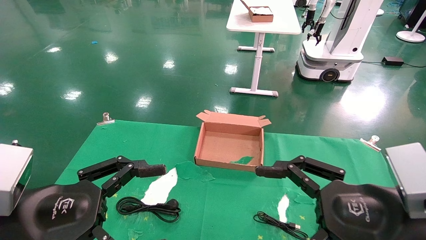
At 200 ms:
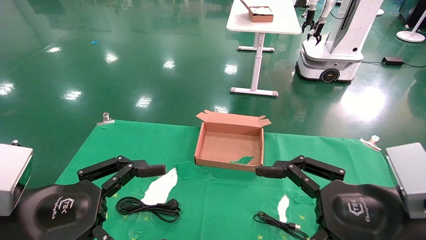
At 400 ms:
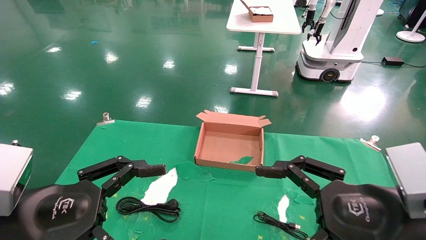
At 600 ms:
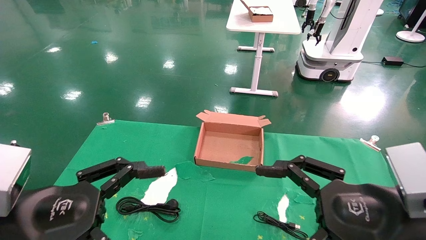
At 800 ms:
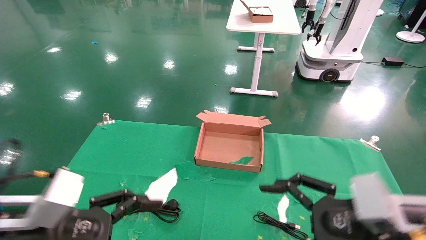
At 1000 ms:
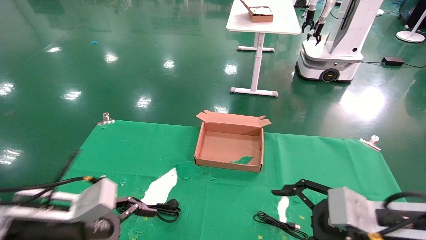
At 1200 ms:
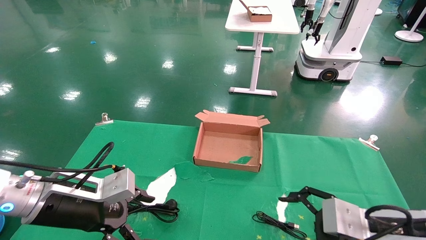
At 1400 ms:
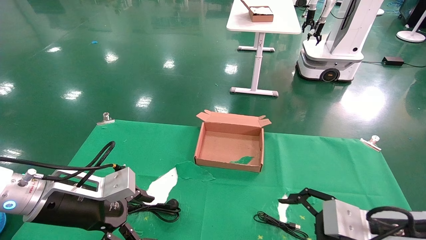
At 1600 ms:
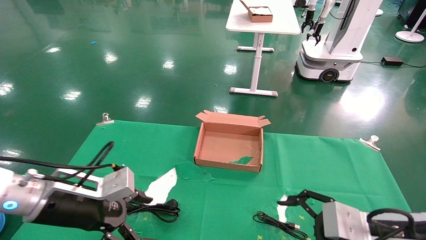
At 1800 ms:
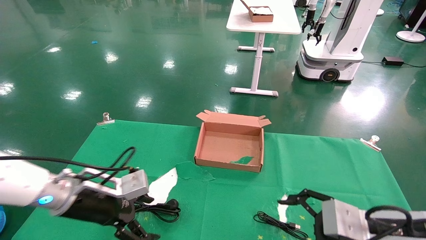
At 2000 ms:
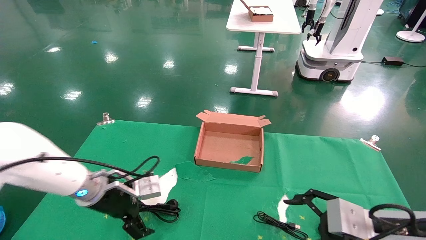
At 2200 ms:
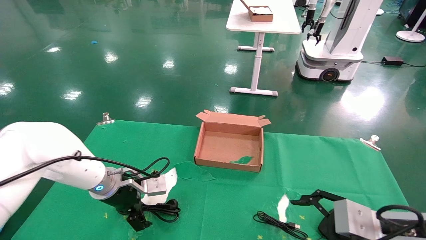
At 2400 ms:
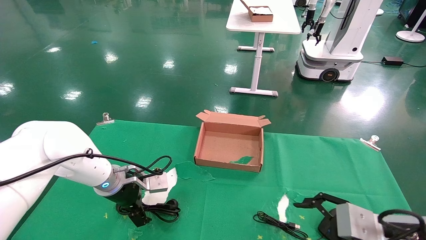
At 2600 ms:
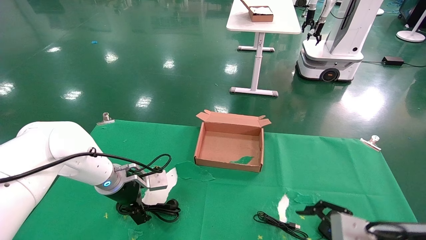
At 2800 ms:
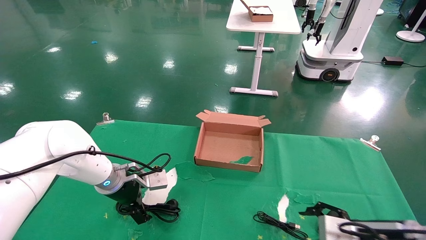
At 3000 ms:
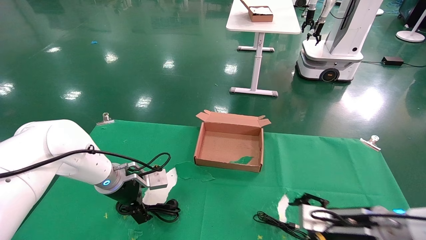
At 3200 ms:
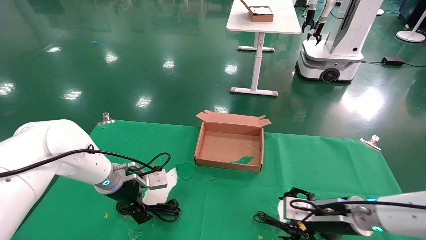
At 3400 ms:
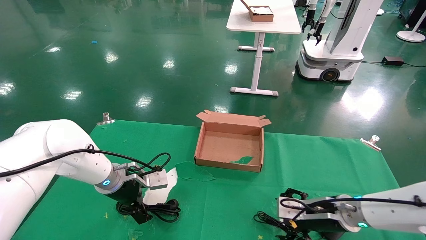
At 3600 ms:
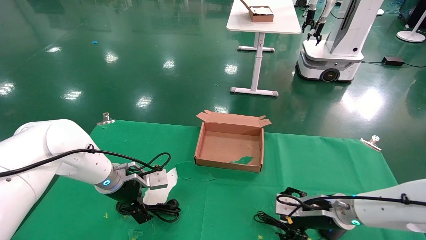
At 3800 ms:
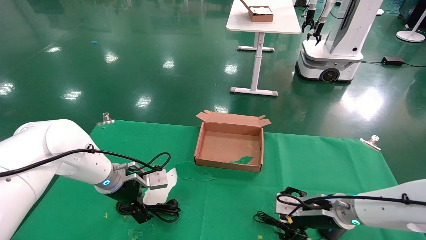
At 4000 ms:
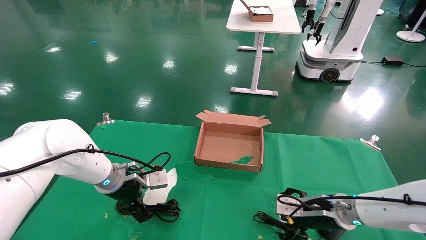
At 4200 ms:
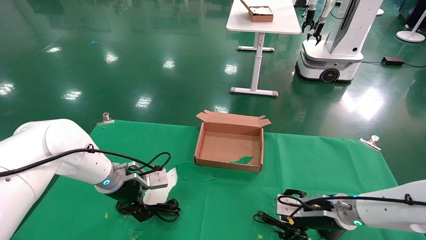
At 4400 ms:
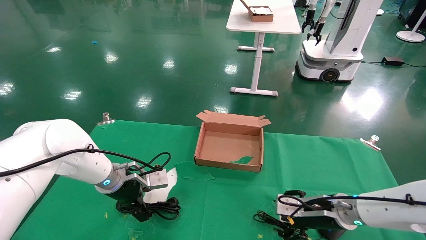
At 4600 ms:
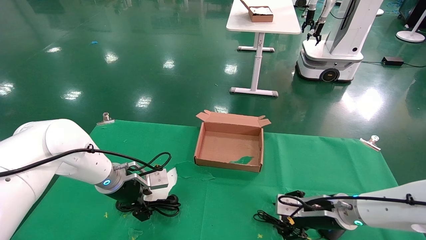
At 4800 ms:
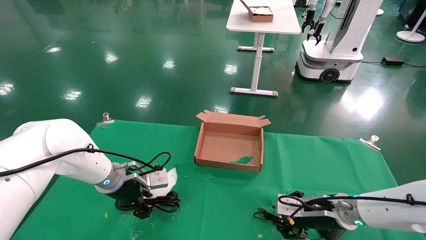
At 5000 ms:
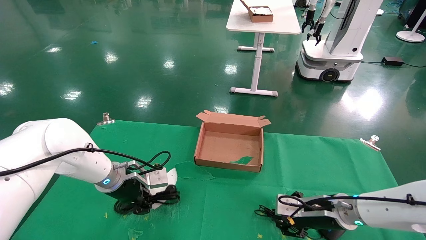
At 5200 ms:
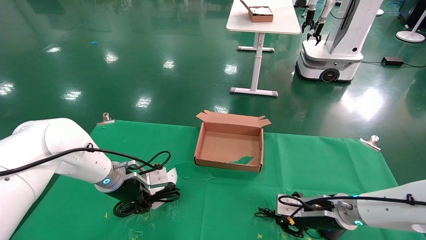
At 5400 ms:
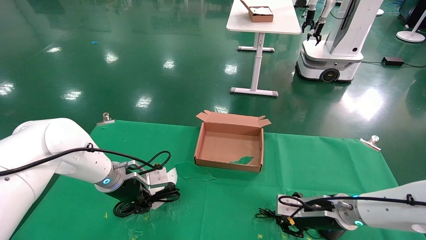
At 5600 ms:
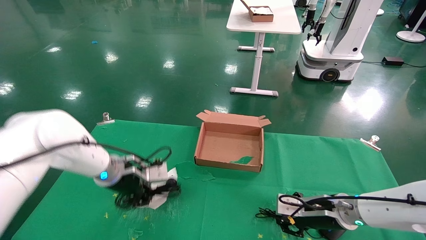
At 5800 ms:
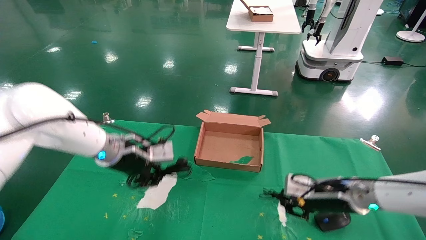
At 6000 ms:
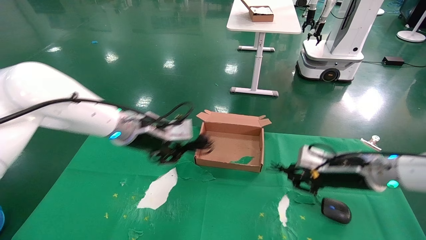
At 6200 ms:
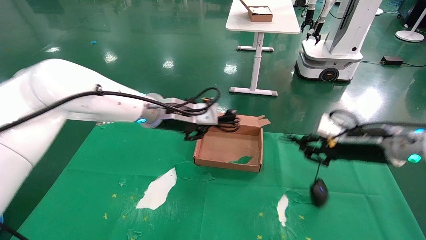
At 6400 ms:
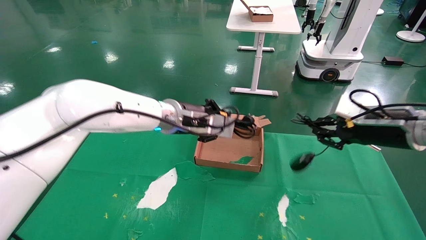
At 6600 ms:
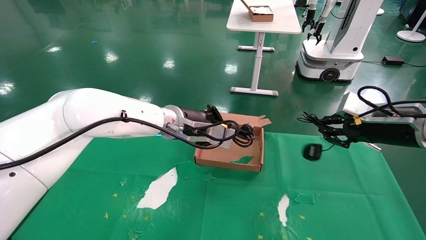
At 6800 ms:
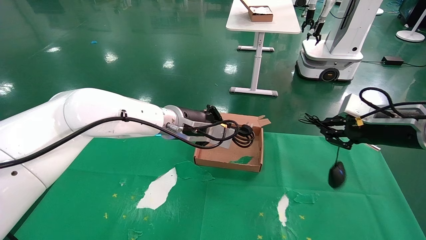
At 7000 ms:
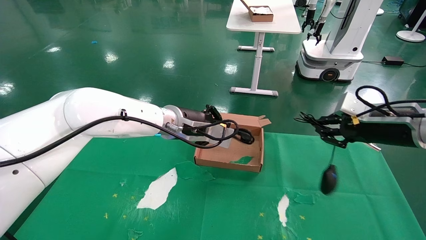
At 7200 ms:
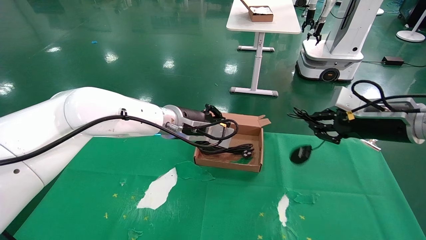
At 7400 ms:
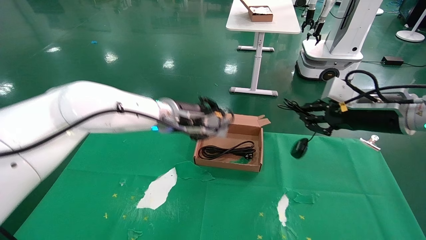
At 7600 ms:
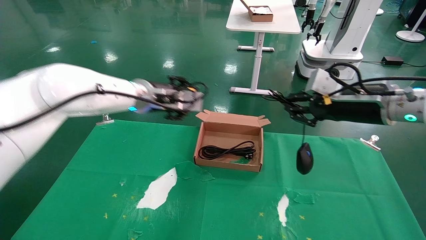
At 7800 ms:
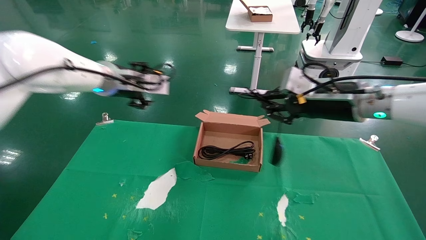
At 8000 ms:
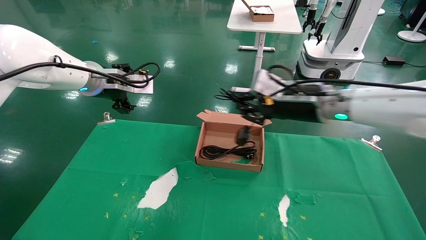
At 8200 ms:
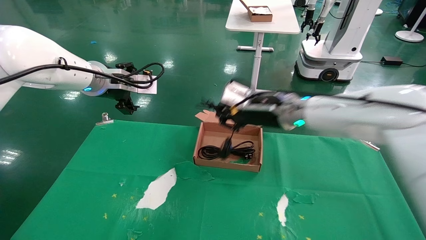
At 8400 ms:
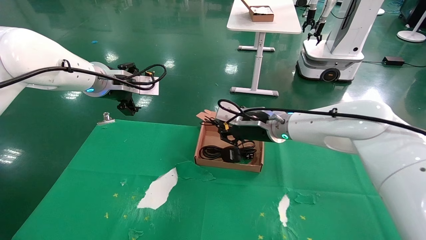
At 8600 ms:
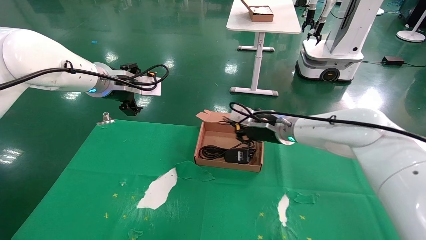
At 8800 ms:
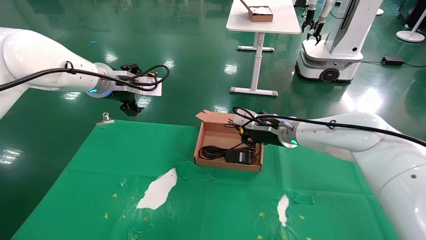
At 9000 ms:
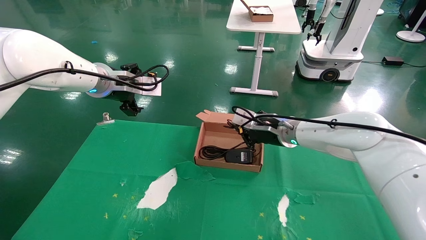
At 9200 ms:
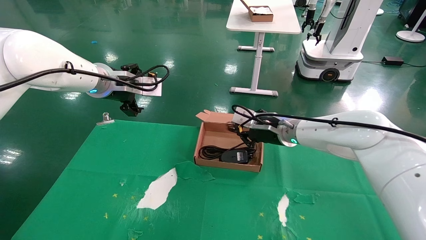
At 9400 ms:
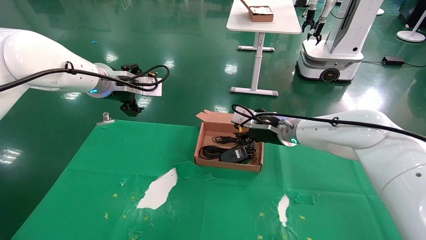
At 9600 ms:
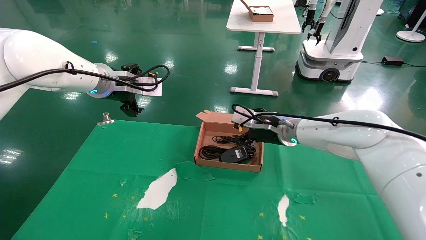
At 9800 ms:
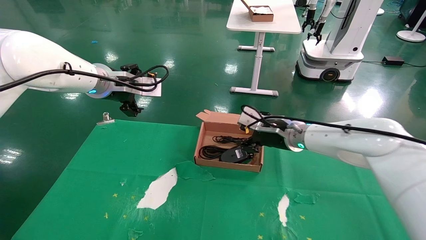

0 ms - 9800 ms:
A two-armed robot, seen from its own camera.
Step, 1600 ms - 5600 ms: Grab and lift both the mouse and power cord from the accessory packaging area at the same time.
Step, 5800 ms - 9600 ms: Place the mouse and power cord into the box.
0 ms - 1400 ms: The left gripper goes about 10 cm forward; the right gripper moves downward and forward, roughly 10 cm.
1400 ms - 2800 ms: The left gripper is displaced forward by approximately 15 cm. Meanwhile the right gripper goes about 5 cm forward.
2800 ms - 4200 ms: The right gripper heads forward, covering roughly 10 cm.
4200 ms - 5600 ms: The right gripper closes. The left gripper closes up.
5600 ms - 7000 ms: The left gripper heads to the right and upward, covering about 15 cm. Meanwhile the right gripper travels upward and to the right by approximately 20 cm.
7000 ms - 8400 ms: The right gripper heads to the left and forward, covering about 25 cm. Meanwhile the left gripper is displaced to the left and upward by about 15 cm, and opens its fingers.
8400 ms - 9800 ms: The right gripper opens.

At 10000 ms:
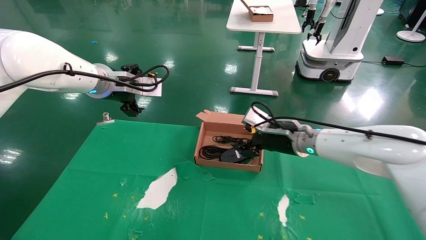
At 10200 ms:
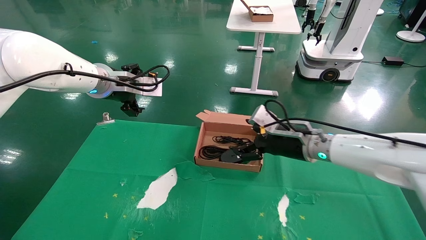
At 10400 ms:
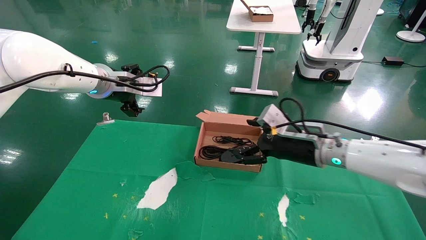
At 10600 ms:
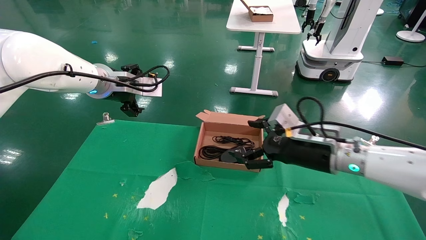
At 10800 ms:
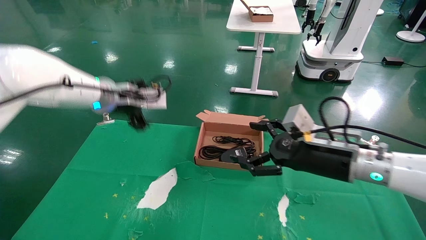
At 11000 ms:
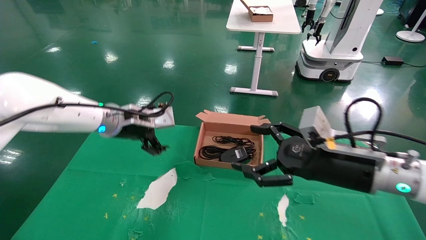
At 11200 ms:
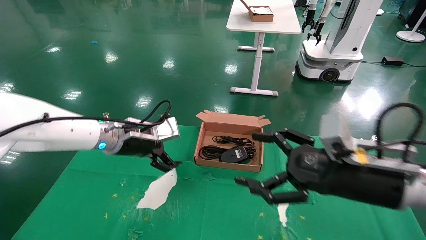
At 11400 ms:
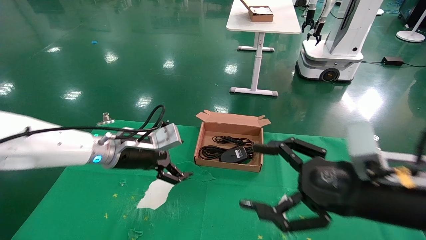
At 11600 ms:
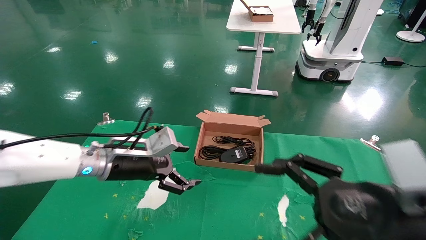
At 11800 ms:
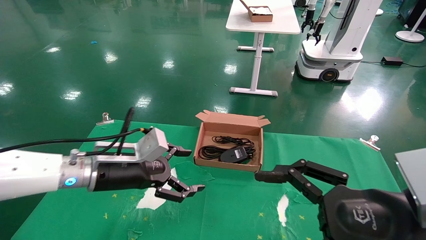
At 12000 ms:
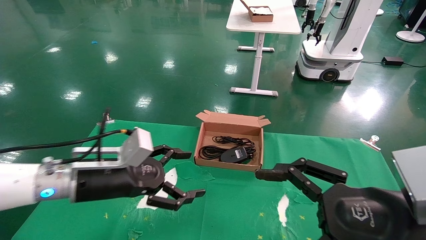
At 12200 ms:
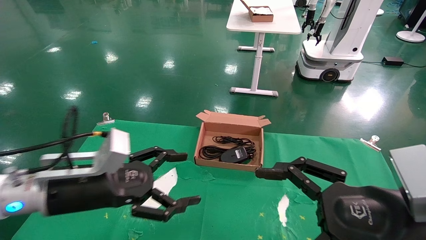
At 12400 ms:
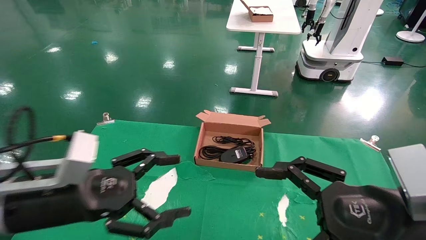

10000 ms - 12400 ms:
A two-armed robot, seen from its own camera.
10000 ms - 11200 ms: The right gripper shifts some 20 cm backward, while the left gripper travels downward by roughly 10 cm.
11200 ms - 12400 ms: The right gripper is displaced backward by roughly 10 cm. Meanwhile the left gripper goes approximately 15 cm backward.
